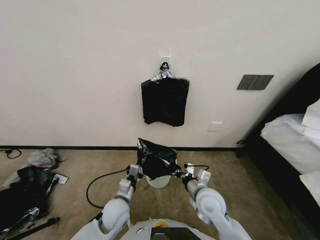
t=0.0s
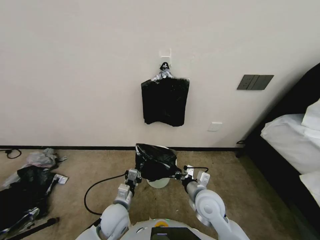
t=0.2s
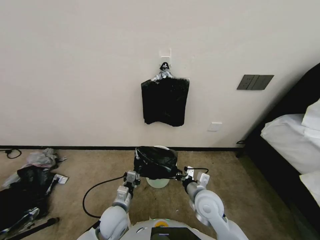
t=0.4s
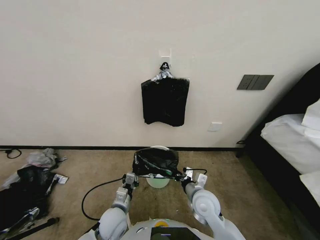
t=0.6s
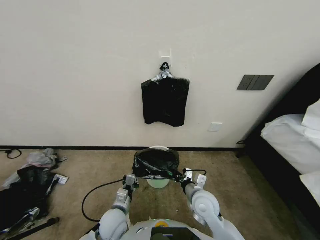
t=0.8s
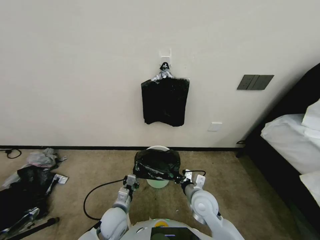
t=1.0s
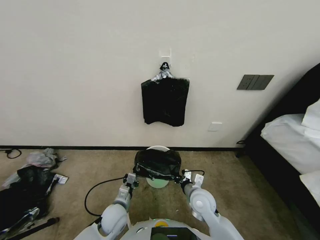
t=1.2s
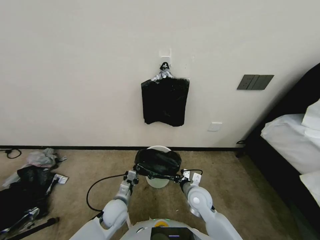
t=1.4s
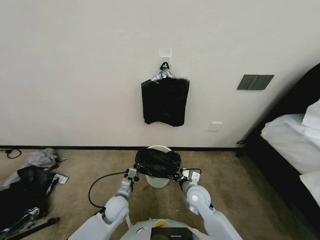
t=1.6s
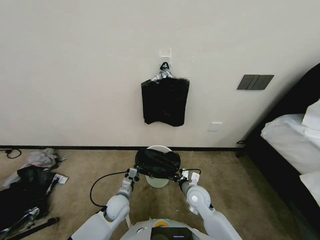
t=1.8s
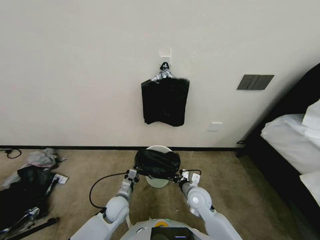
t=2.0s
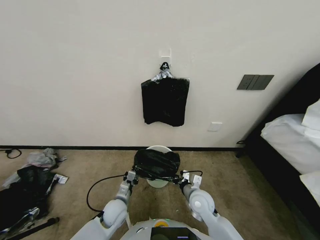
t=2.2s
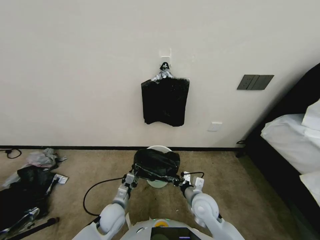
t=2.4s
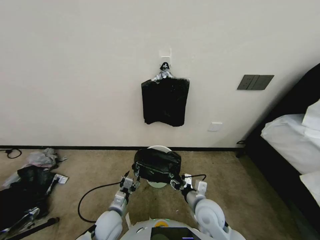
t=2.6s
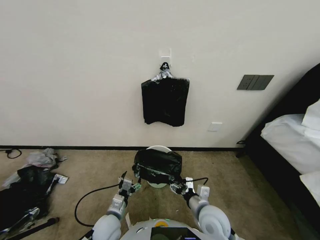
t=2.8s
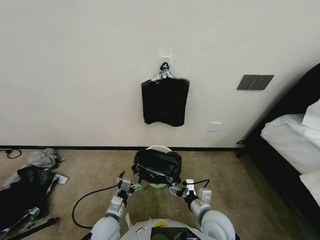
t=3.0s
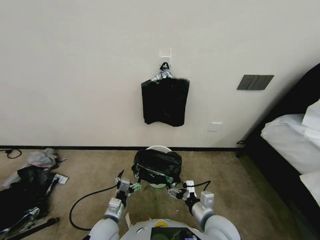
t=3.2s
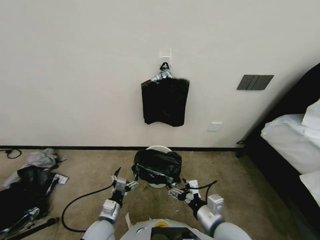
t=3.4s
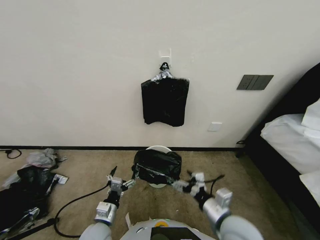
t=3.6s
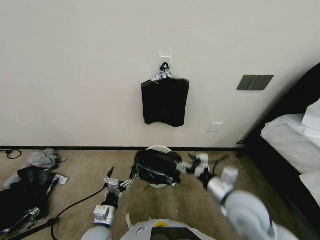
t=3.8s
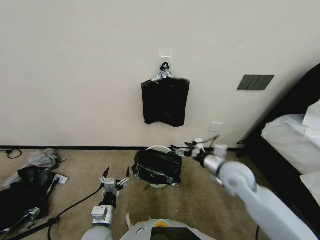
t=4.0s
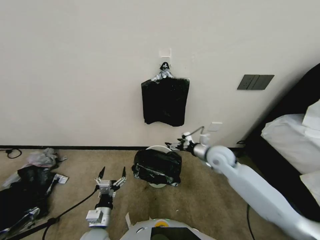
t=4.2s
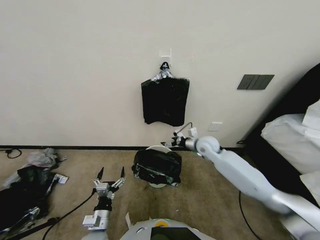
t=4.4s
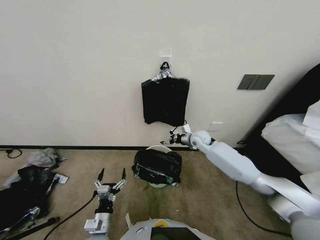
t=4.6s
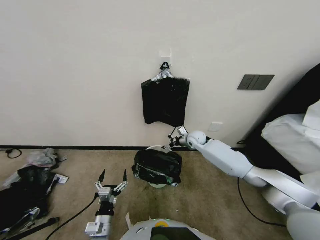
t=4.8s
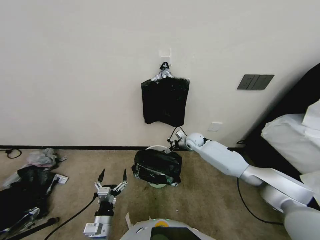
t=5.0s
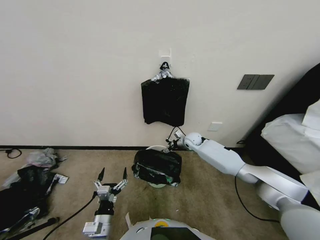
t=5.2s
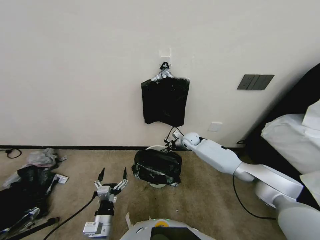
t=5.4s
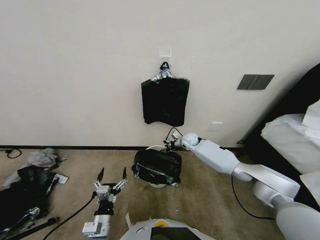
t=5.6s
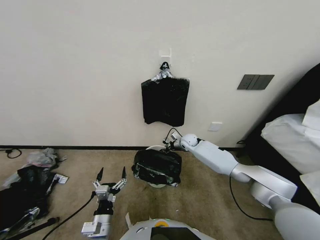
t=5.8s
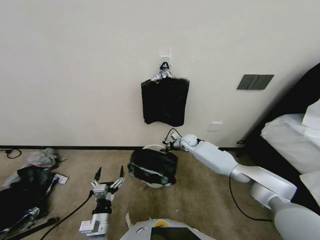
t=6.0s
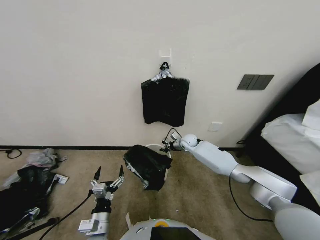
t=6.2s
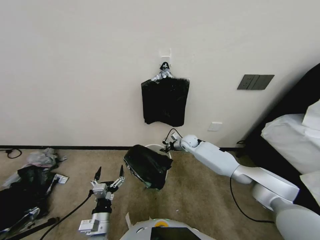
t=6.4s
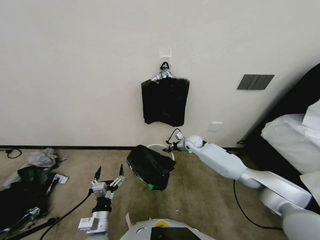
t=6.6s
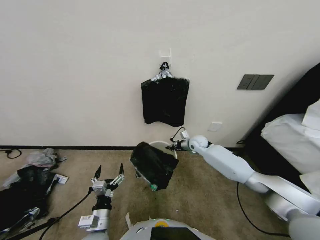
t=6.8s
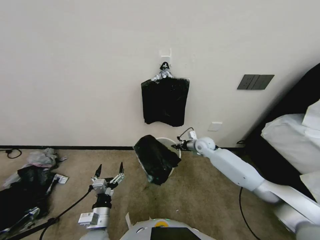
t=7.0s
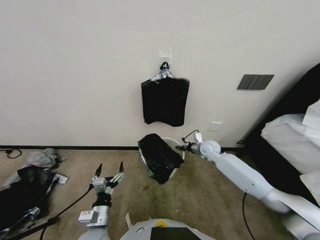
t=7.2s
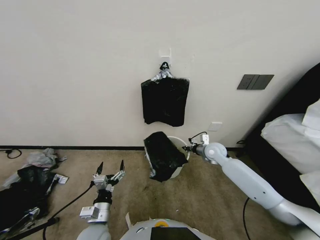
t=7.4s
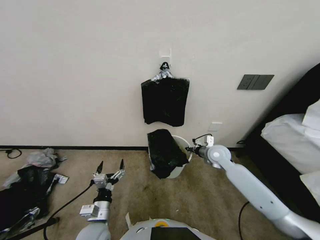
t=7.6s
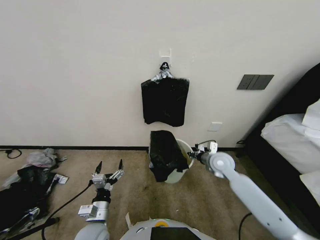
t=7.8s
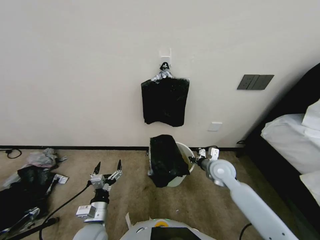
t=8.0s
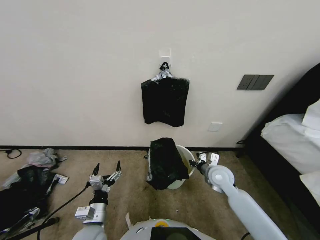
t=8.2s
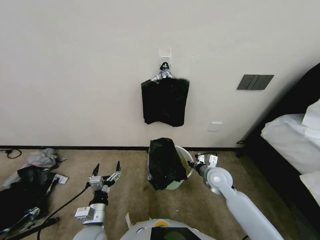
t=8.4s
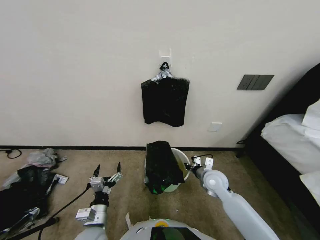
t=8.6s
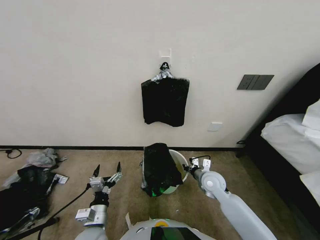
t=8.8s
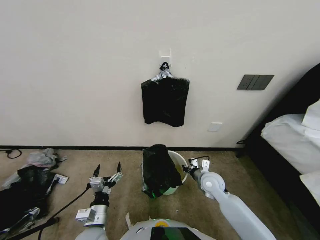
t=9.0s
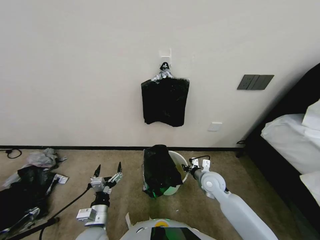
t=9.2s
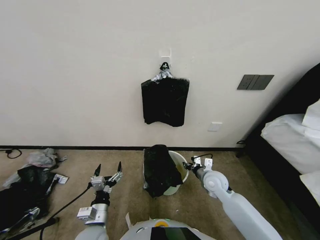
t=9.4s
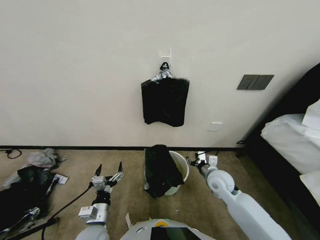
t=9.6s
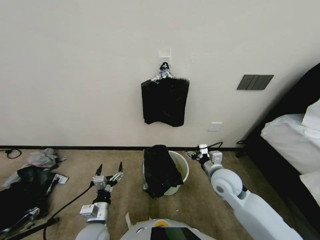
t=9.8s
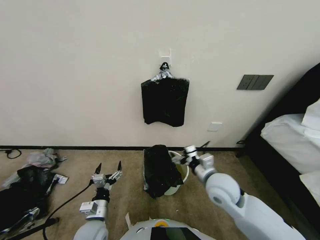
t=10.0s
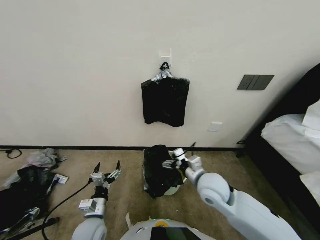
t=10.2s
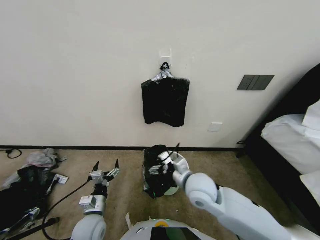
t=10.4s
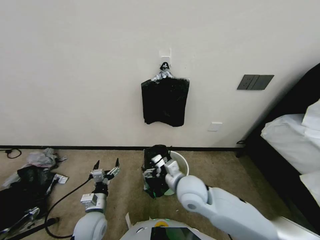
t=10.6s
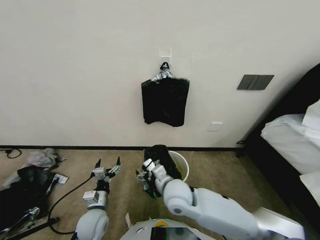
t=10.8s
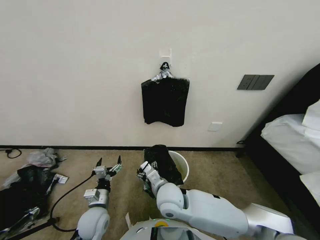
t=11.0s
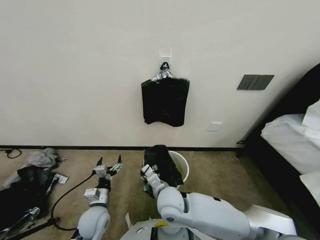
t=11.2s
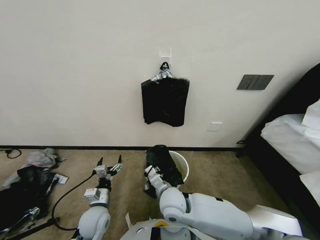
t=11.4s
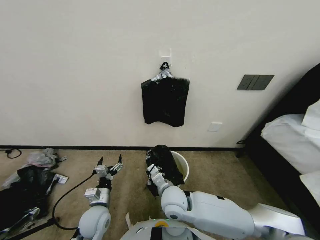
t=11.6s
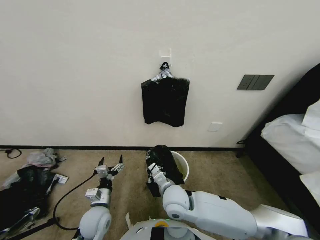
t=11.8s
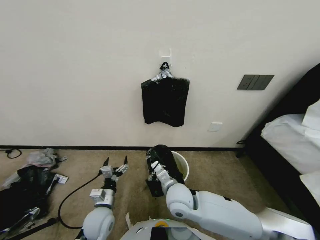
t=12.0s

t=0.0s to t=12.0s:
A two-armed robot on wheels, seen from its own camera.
Task of the whole recording: Place a trash bag onto the trash bin.
t=0.0s to t=1.6s: Both grippers move downward, some 5 cm.
t=1.6s to t=3.0s: Both grippers travel together backward, about 10 cm. The left gripper opens its fingers; the right gripper opens its fingers.
t=3.0s to t=4.4s: The right gripper heads forward, covering some 25 cm.
t=4.4s to t=6.0s: The right gripper is displaced forward and downward by approximately 15 cm, and closes up.
t=6.0s to t=7.6s: The right gripper shifts approximately 15 cm backward, to the right and upward.
t=7.6s to t=9.0s: The right gripper shifts approximately 15 cm backward and downward.
t=9.0s to t=10.4s: The right gripper moves upward, to the left and backward, some 15 cm, and opens.
t=10.4s to t=12.0s: The right gripper shifts some 10 cm to the left and downward, and closes its fingers.

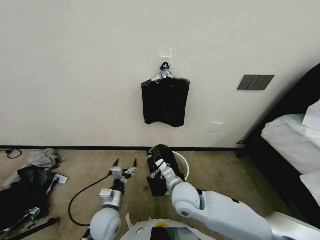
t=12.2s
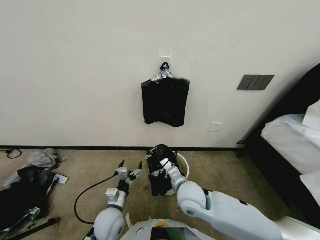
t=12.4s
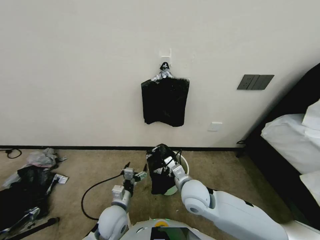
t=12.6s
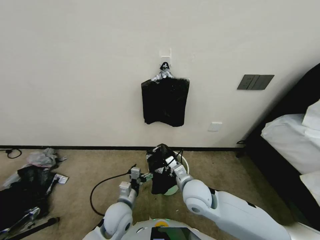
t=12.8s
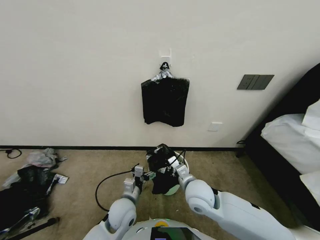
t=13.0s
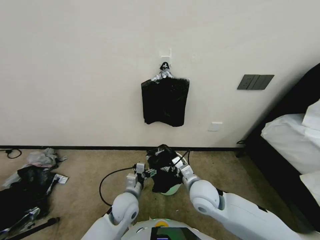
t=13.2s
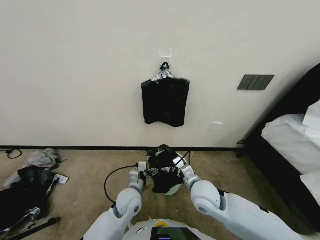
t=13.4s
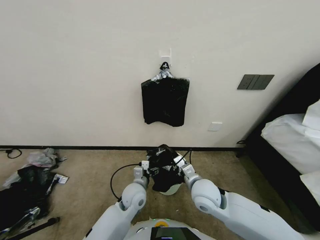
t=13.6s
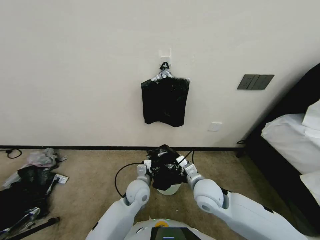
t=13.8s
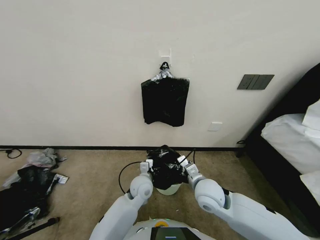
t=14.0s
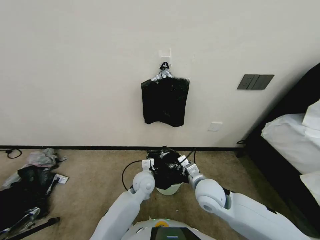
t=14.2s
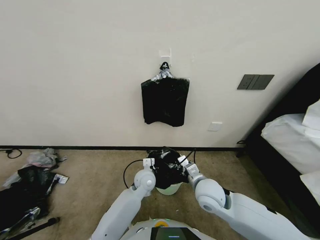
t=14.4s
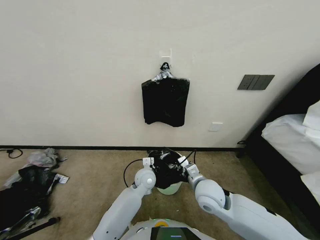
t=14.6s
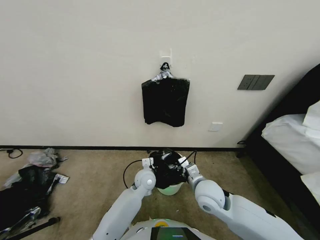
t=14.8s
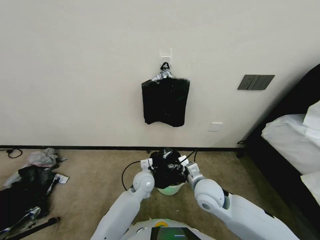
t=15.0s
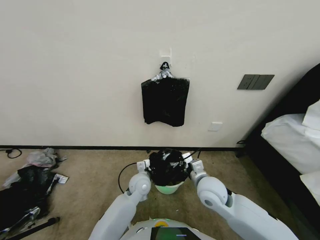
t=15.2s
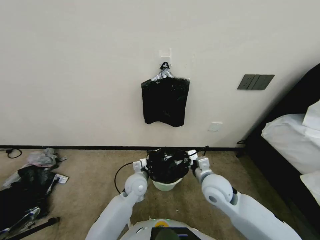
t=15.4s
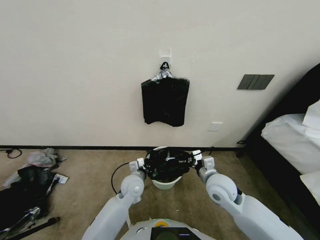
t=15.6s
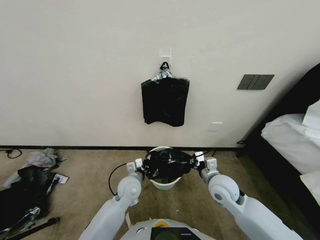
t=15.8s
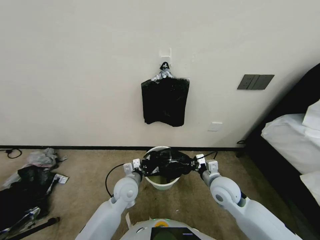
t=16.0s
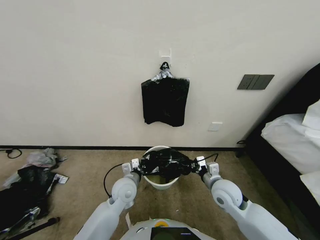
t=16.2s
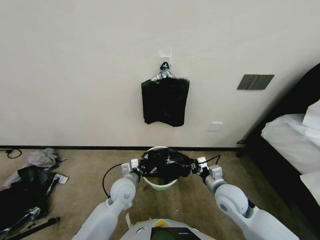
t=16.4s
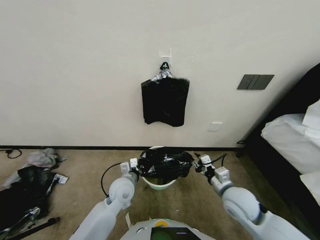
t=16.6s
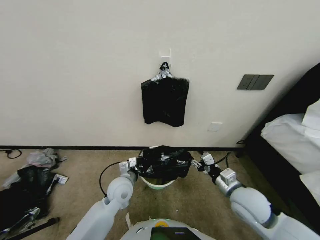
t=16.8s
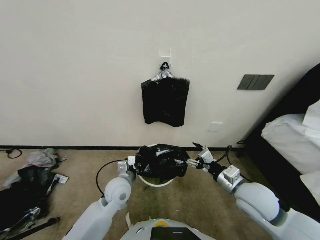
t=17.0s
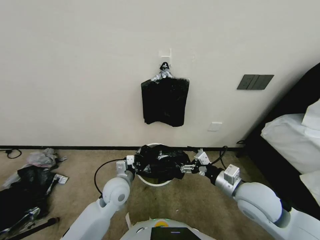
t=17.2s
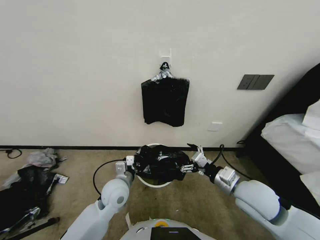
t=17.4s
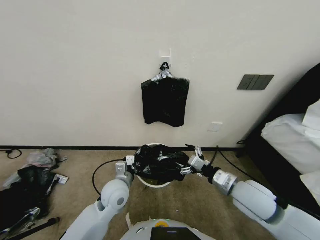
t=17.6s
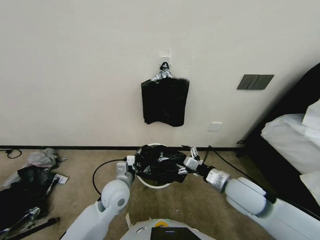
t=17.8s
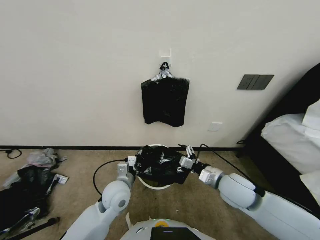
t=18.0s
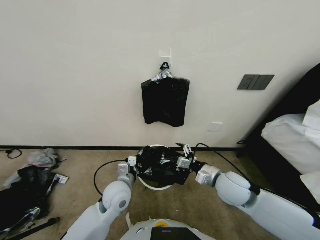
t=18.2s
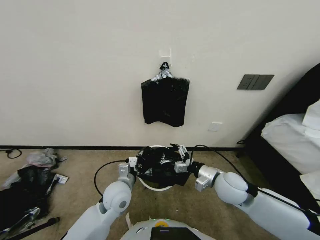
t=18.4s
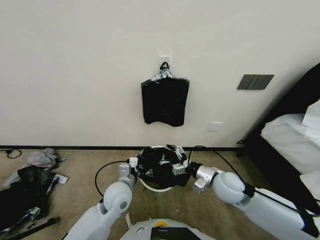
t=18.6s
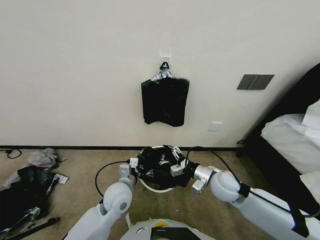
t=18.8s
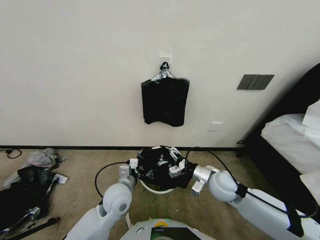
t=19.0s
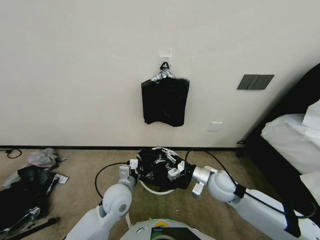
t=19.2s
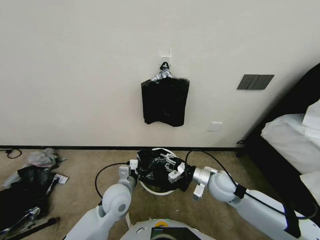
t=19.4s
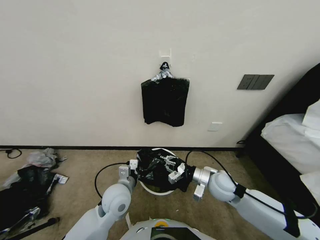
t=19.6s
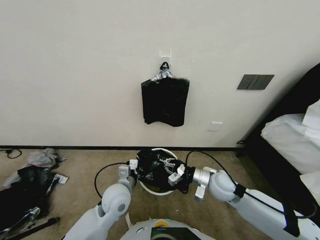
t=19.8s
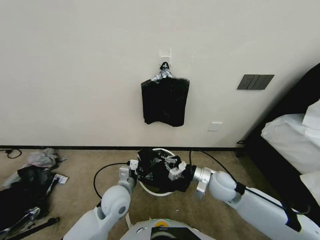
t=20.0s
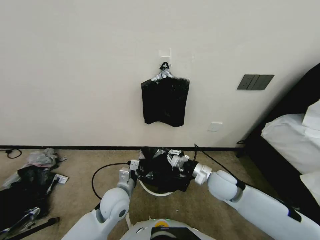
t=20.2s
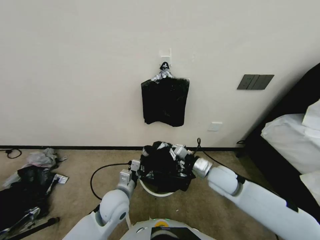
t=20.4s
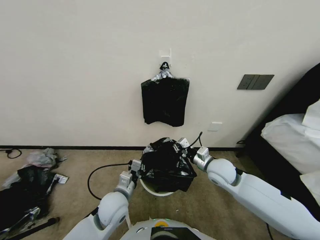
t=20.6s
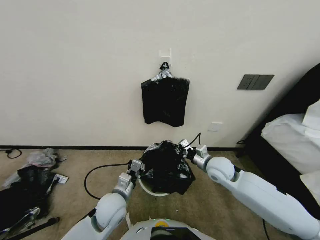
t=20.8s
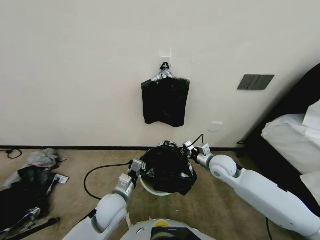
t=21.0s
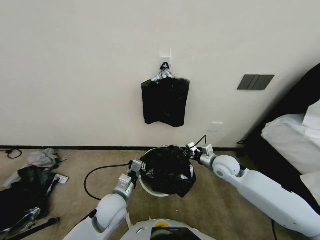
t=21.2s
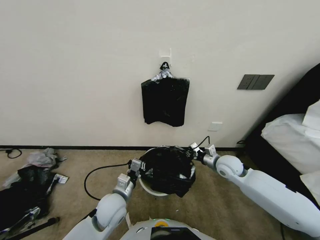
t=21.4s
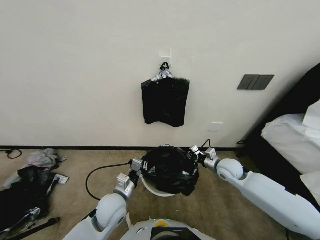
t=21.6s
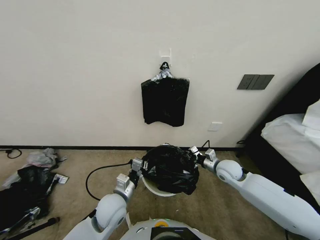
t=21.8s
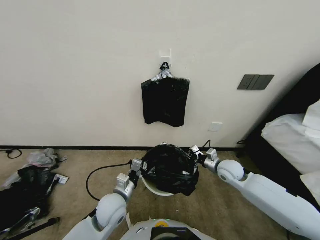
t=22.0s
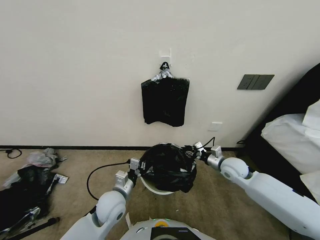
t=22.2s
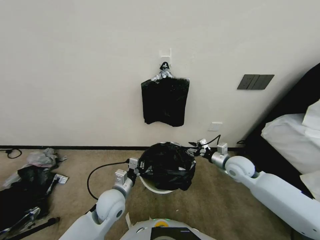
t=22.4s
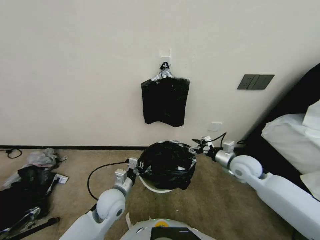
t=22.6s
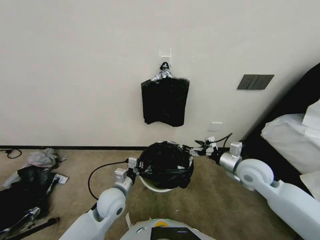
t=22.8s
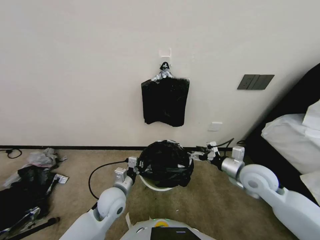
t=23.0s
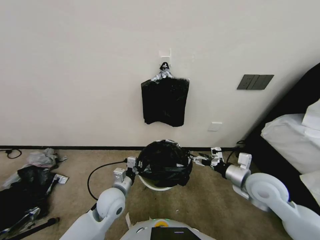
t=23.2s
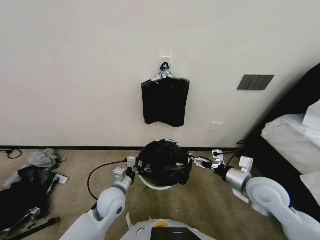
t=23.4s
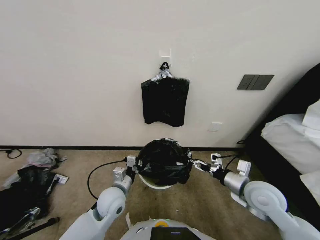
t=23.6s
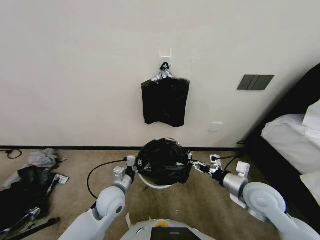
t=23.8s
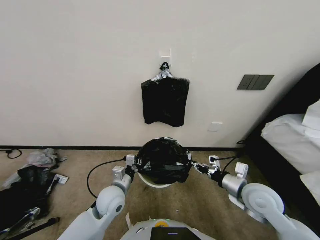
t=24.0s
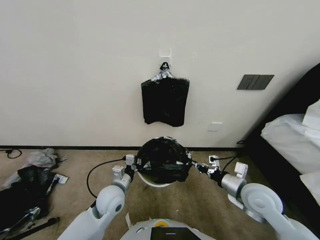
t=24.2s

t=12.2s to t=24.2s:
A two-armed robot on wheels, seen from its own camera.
Task of the whole recording: Place a trash bag onto the trash bin.
t=12.2s to t=13.8s: The left gripper heads to the right and forward, covering approximately 15 cm. The right gripper is displaced to the right by roughly 10 cm.
t=13.8s to t=15.2s: The left gripper closes its fingers.
t=15.2s to t=16.6s: The right gripper heads to the right, covering approximately 10 cm. The left gripper travels to the left by about 5 cm.
t=16.6s to t=18.2s: The right gripper is displaced upward by some 5 cm, and opens up.
t=18.2s to t=19.8s: The right gripper ends up approximately 5 cm from where it was, and closes up.
t=19.8s to t=21.2s: The right gripper heads forward, covering approximately 5 cm.
t=21.2s to t=22.6s: The right gripper goes about 5 cm to the right, and opens.
t=22.6s to t=24.2s: The right gripper travels backward by about 10 cm, and closes up.
